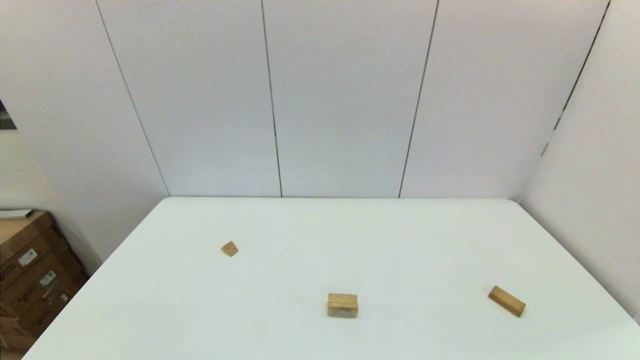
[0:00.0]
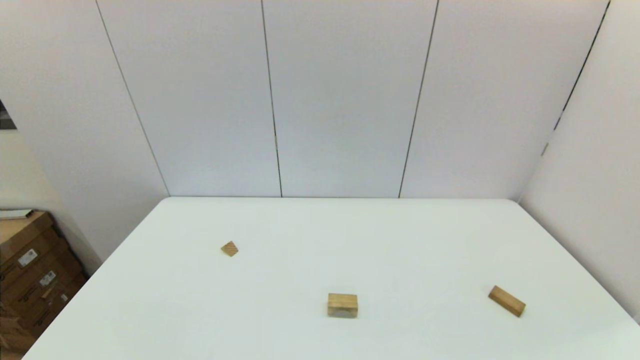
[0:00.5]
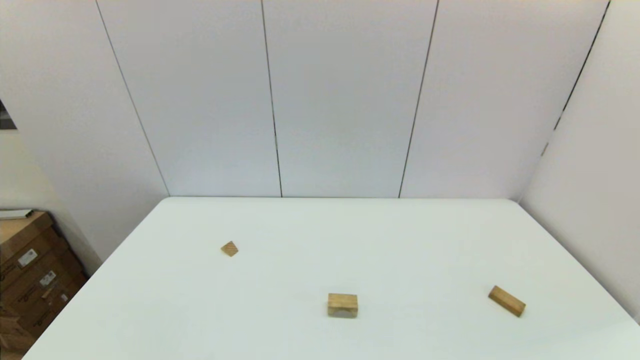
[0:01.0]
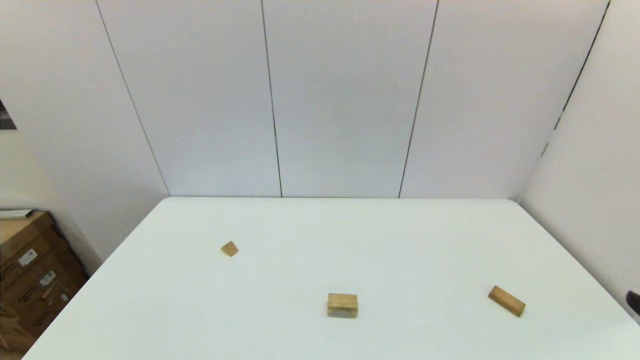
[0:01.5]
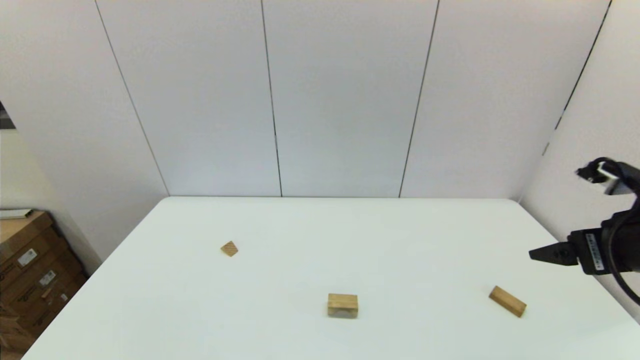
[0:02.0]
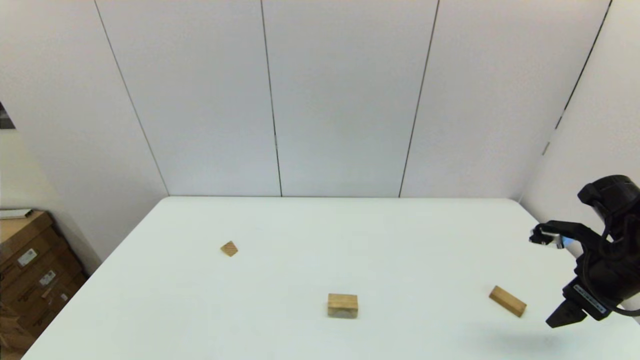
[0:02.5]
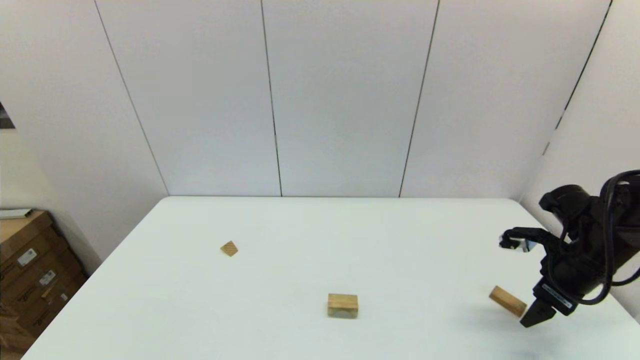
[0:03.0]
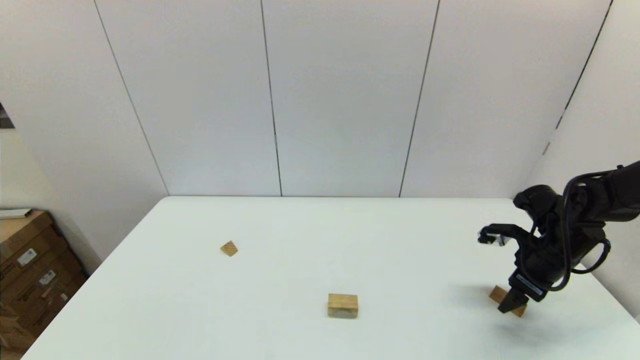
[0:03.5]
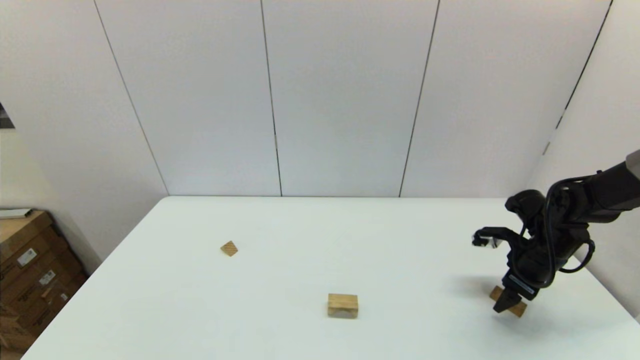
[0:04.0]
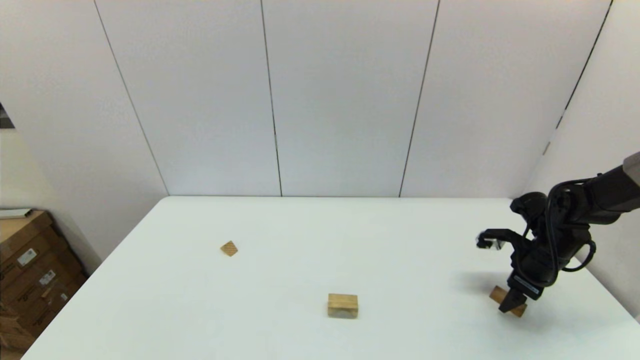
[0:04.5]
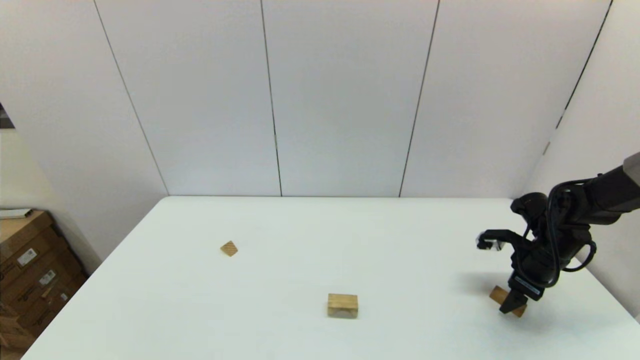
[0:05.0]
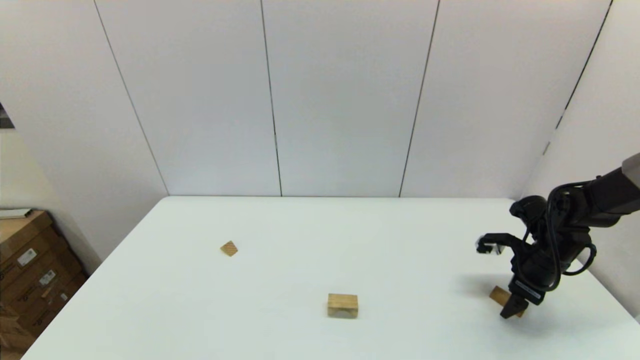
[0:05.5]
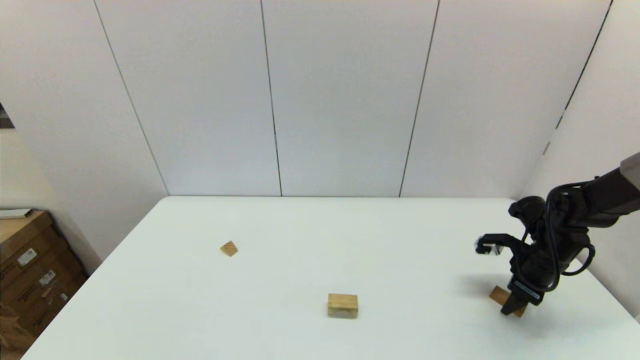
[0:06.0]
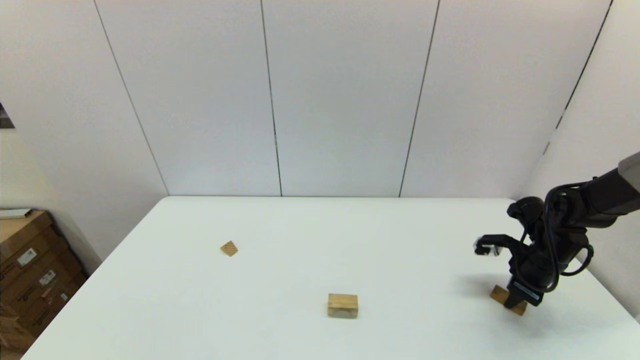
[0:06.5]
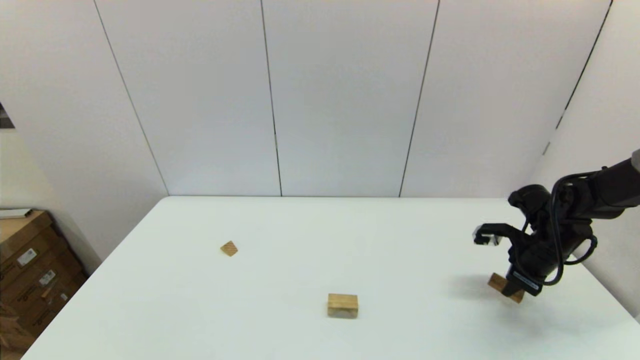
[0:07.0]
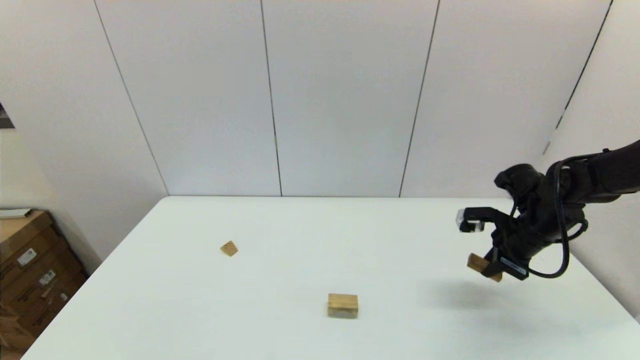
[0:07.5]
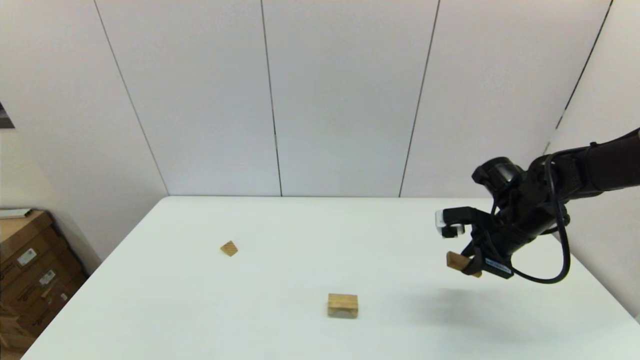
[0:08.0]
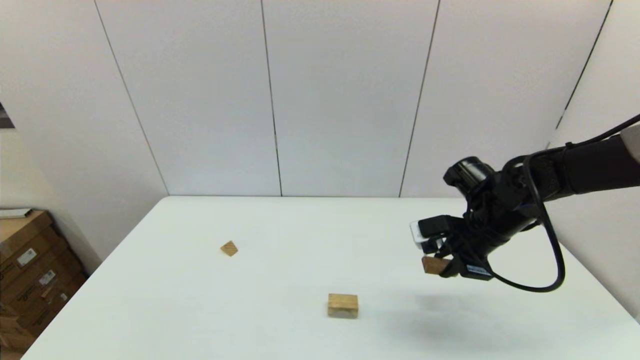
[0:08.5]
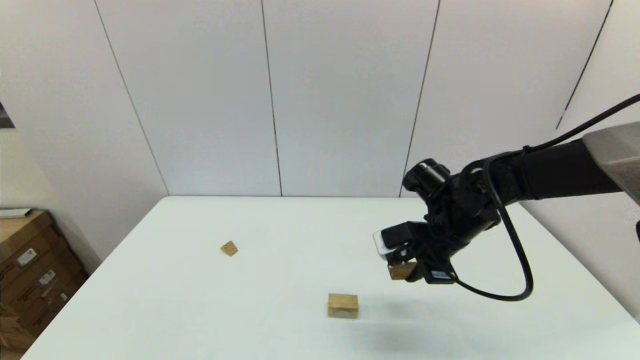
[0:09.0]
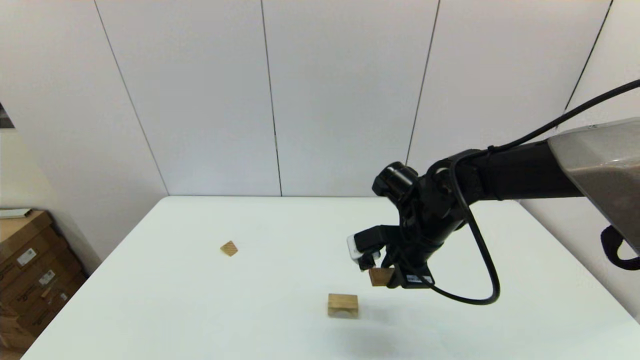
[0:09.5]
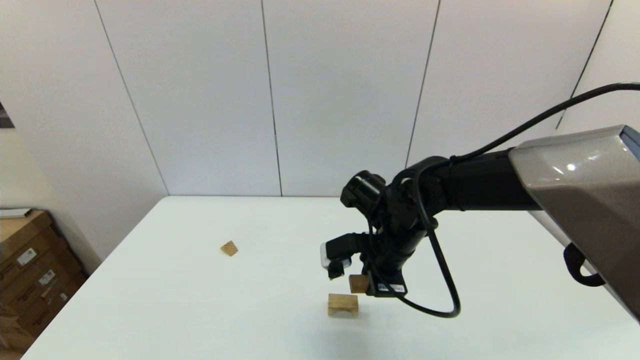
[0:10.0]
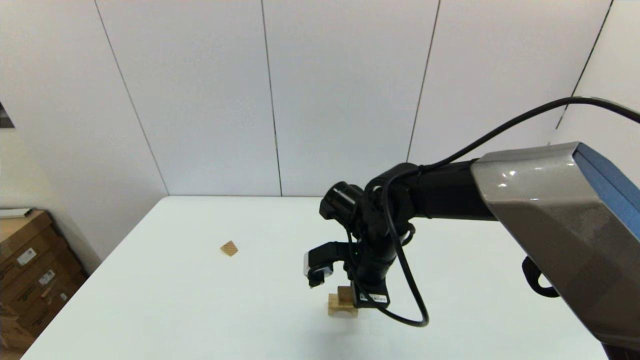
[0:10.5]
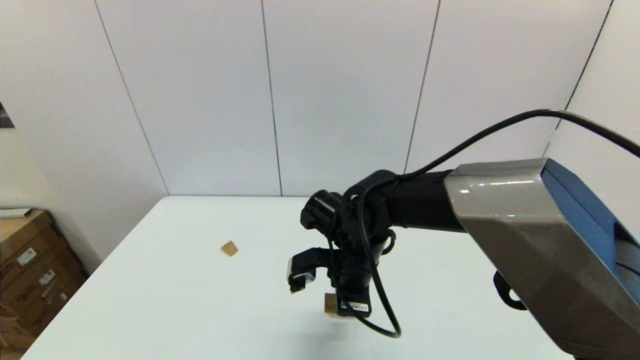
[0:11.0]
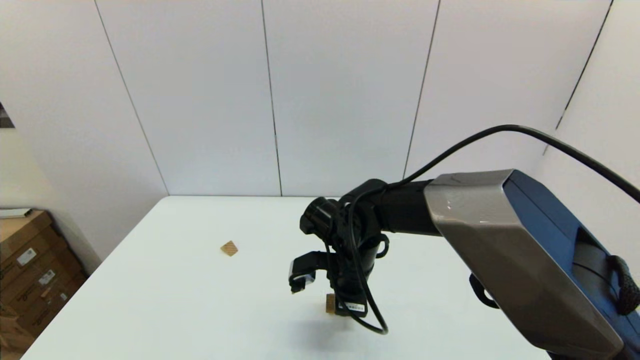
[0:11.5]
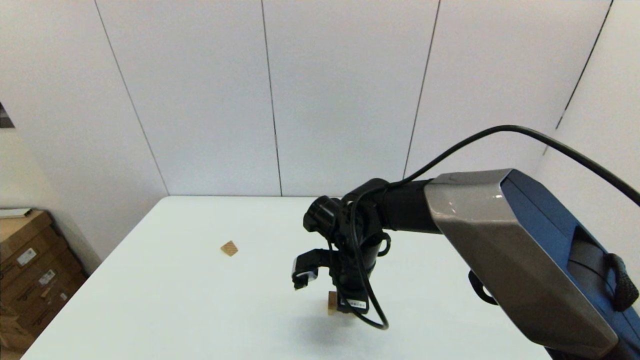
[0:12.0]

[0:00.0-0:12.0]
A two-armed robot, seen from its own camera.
Task of the whole recording: place the arched building blocks in the center of the table, set up the rectangular building blocks, and then set up the triangular building blocks.
Step, 0:00.0 to 0:06.5: Grasp the box-shaped block with the right gripper.
0:00.0 to 0:02.0: The right gripper shifts about 25 cm forward and upward.
0:02.0 to 0:04.0: The right gripper shifts some 20 cm downward and forward.
0:04.0 to 0:06.0: The grippers stay close to where they were, moving slightly.
0:06.0 to 0:08.0: The right gripper heads to the left and upward, covering approximately 10 cm, and closes.
0:08.0 to 0:10.0: The right gripper moves to the left, about 20 cm.
0:10.0 to 0:12.0: The right gripper shifts about 5 cm to the left.

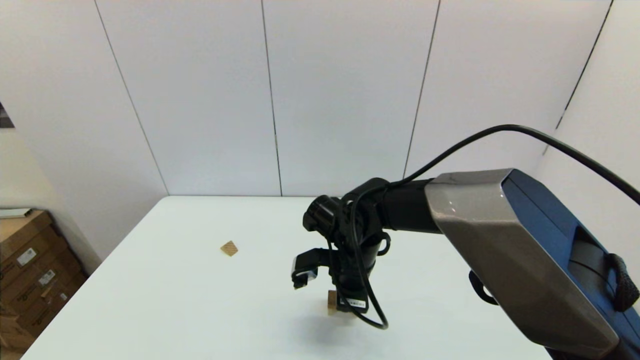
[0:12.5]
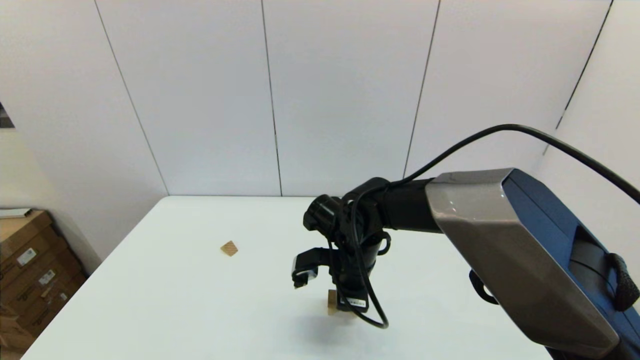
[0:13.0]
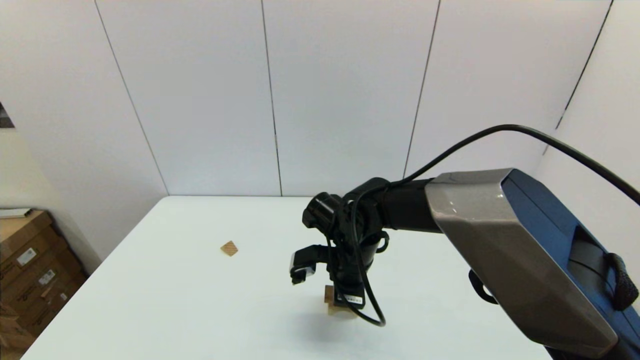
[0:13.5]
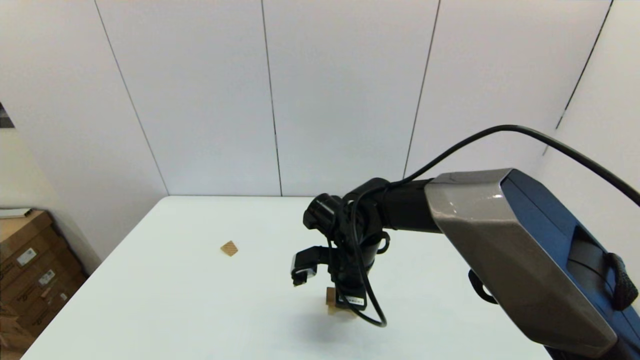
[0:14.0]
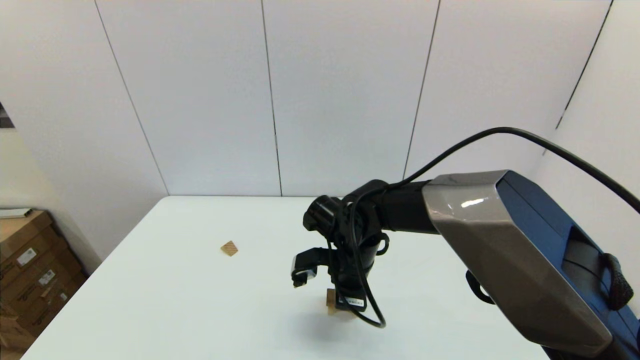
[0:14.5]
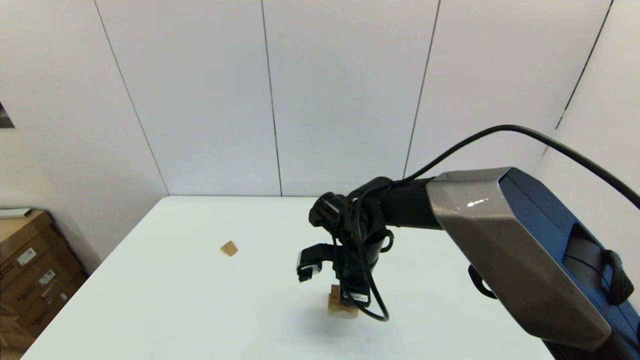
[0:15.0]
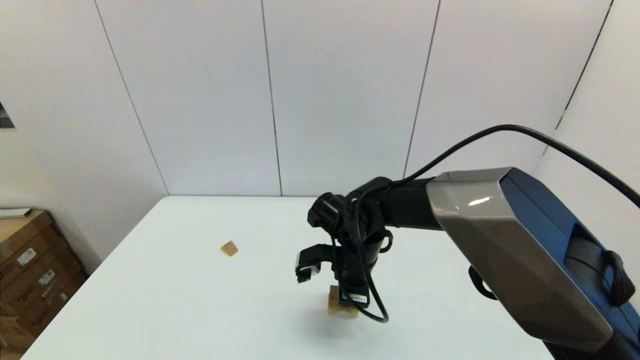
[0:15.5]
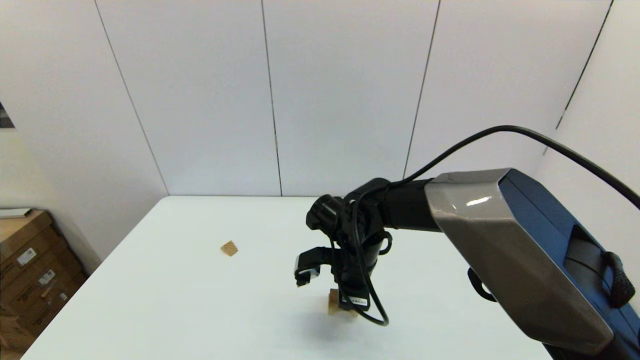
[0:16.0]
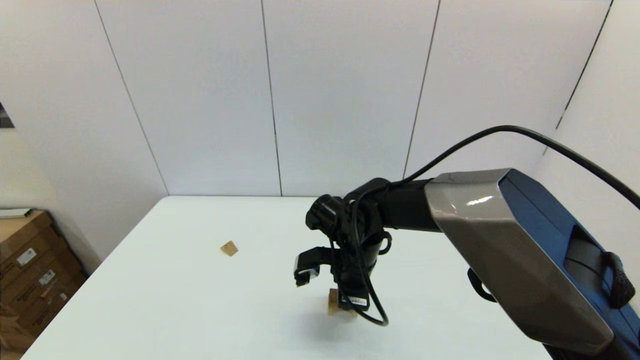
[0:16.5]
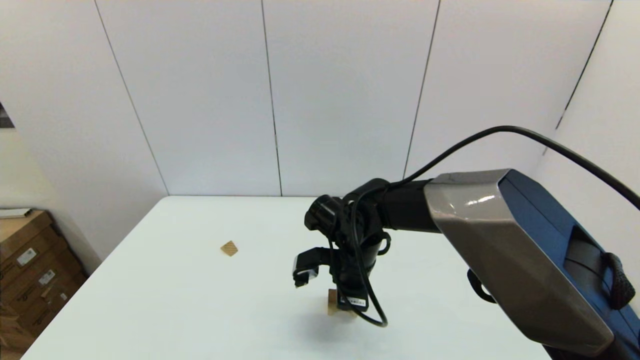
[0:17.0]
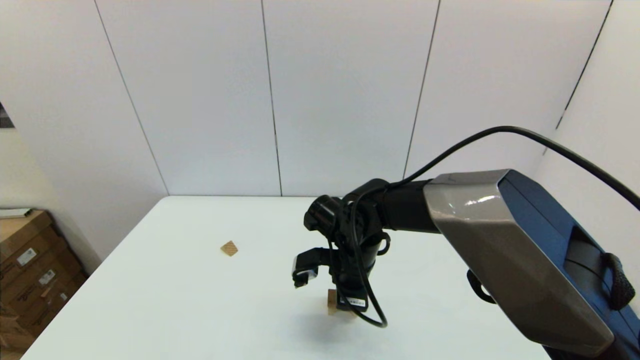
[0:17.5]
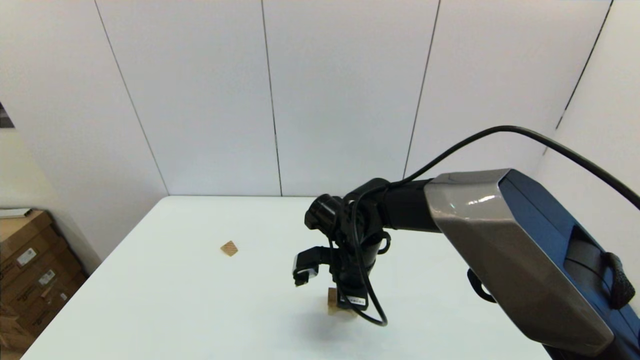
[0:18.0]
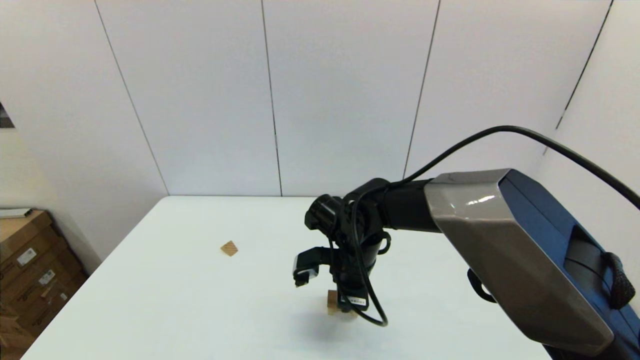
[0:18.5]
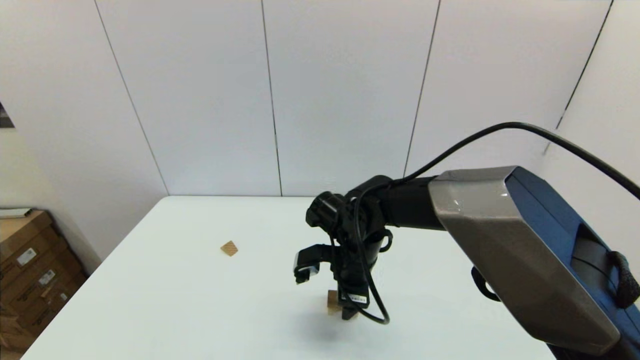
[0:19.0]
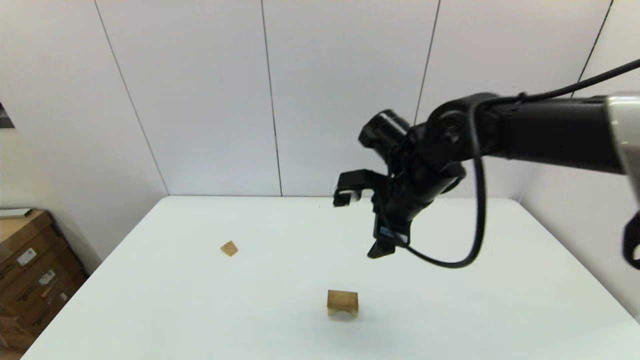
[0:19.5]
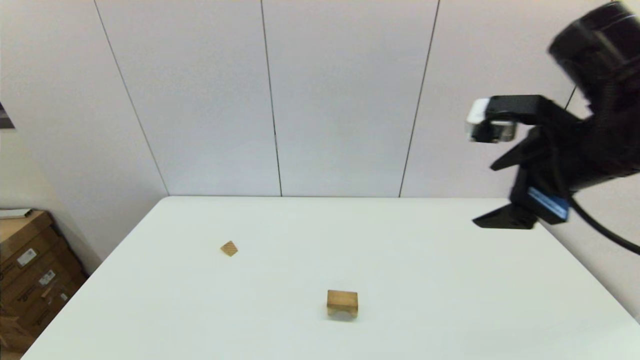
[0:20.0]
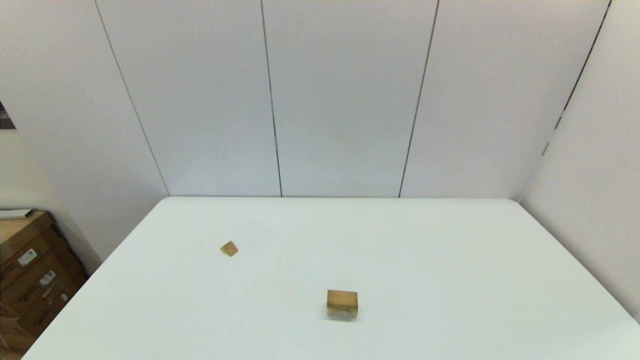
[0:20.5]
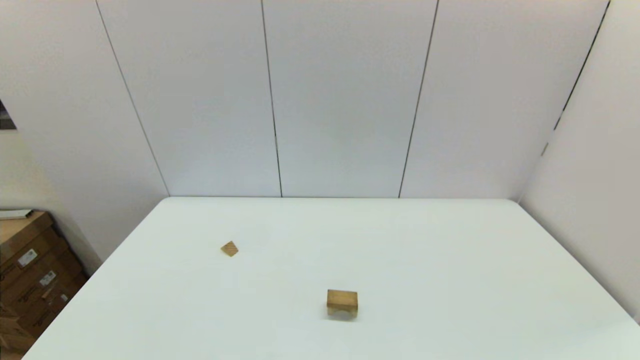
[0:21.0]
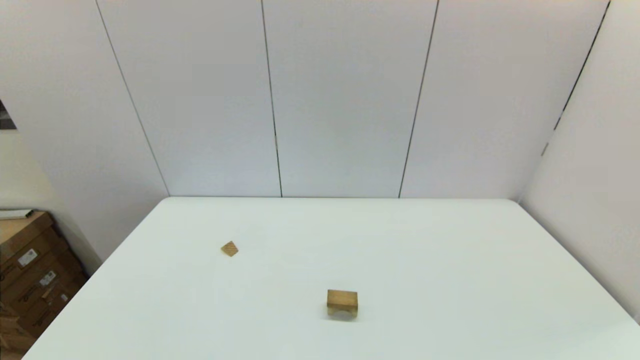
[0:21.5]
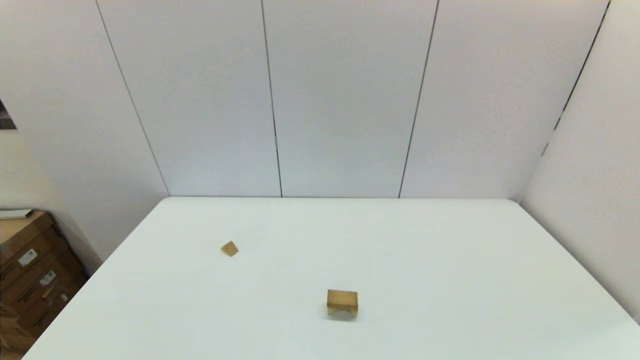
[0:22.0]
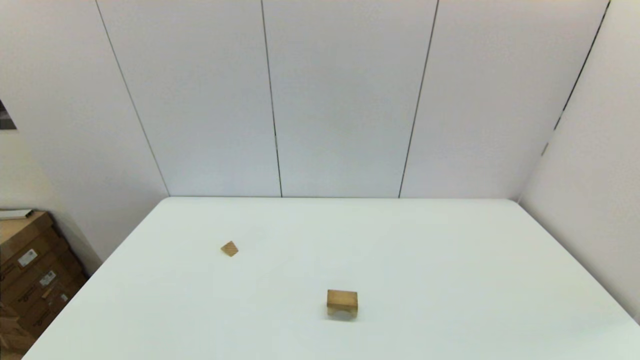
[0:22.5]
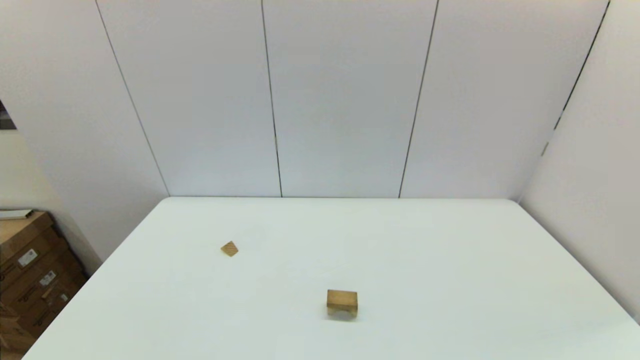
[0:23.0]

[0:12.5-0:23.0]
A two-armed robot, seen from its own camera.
Task of the whole recording: place the arched building blocks in the center of the table, set up the rectangular building blocks, and then set up the triangular building blocks.
Step, 0:12.5 to 0:18.5: Place the box-shaped block onto the arch-shaped block with the right gripper.
0:12.5 to 0:16.5: Both grippers stay put.
0:16.5 to 0:19.0: The right gripper opens.
0:19.0 to 0:21.0: The right gripper is displaced backward and to the right by about 50 cm.
